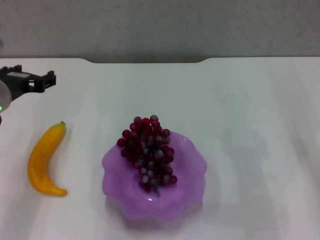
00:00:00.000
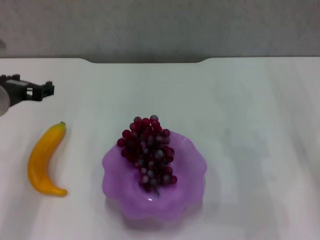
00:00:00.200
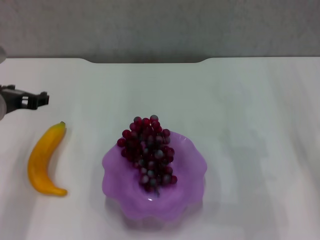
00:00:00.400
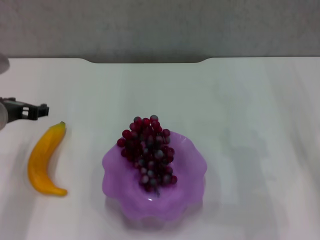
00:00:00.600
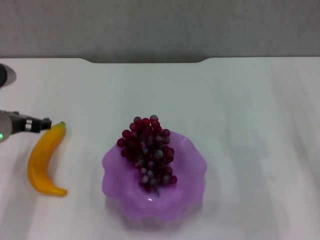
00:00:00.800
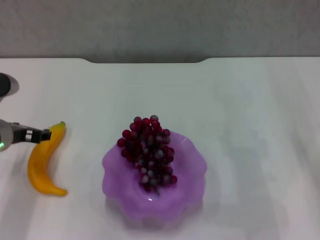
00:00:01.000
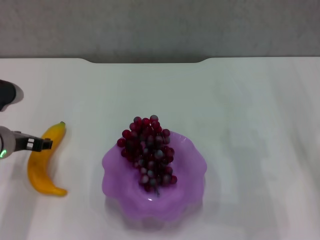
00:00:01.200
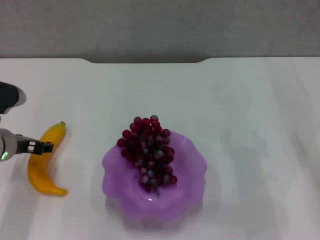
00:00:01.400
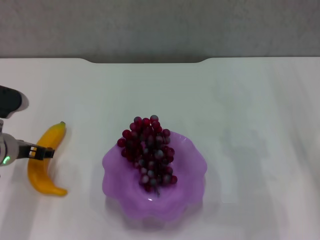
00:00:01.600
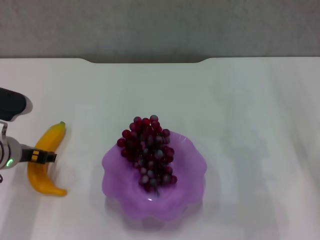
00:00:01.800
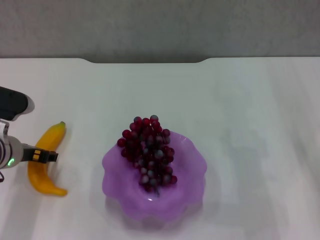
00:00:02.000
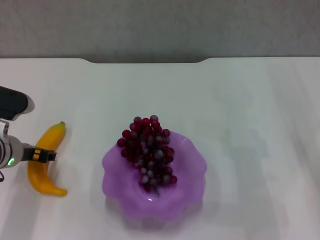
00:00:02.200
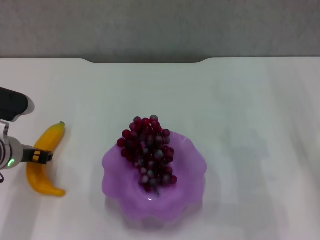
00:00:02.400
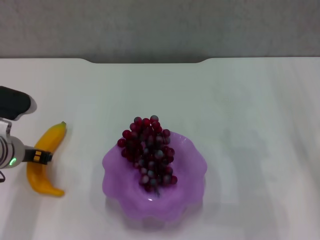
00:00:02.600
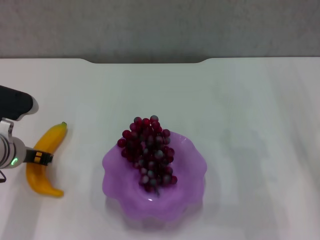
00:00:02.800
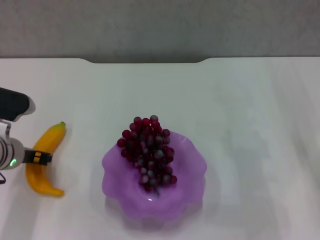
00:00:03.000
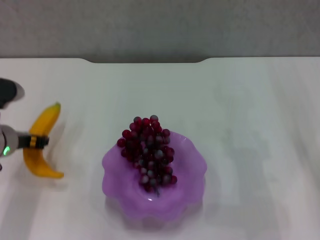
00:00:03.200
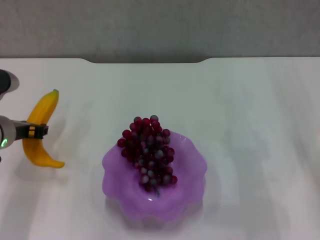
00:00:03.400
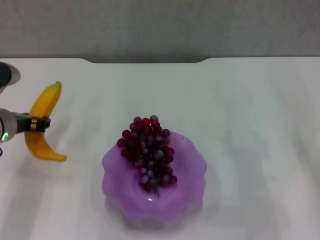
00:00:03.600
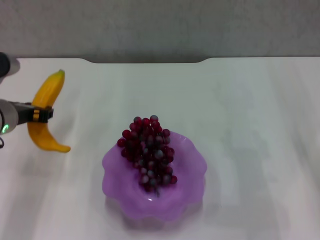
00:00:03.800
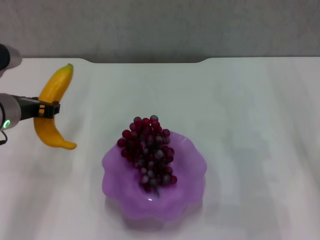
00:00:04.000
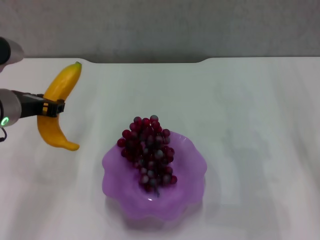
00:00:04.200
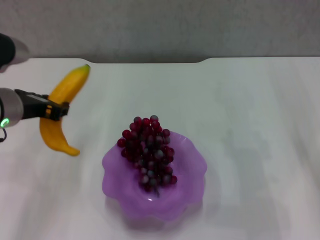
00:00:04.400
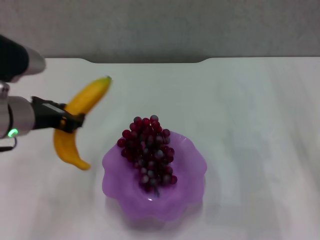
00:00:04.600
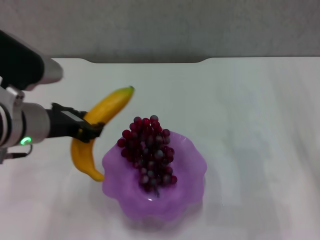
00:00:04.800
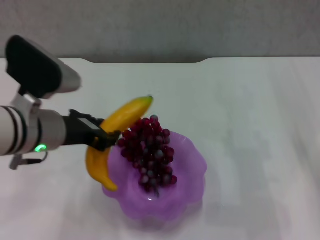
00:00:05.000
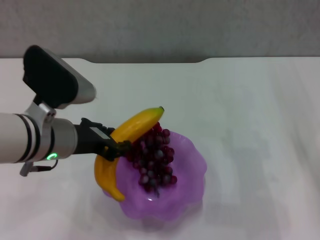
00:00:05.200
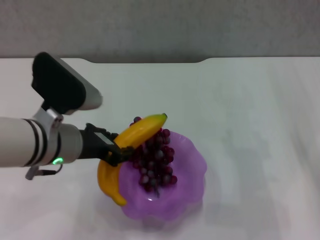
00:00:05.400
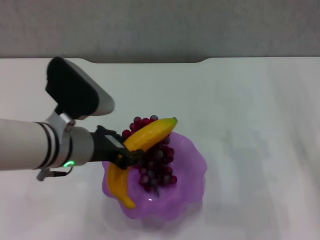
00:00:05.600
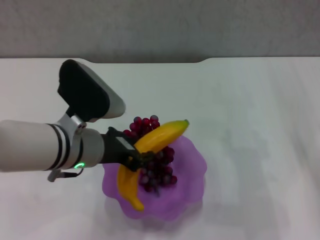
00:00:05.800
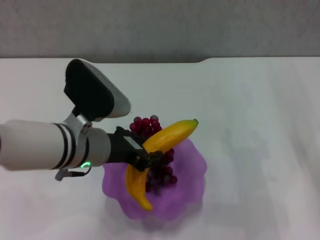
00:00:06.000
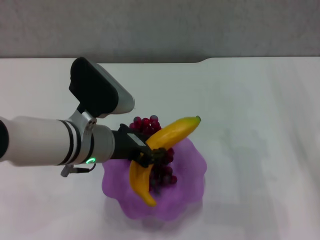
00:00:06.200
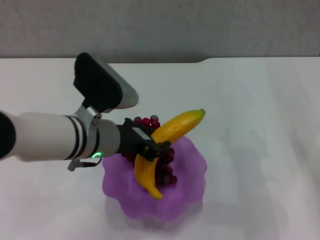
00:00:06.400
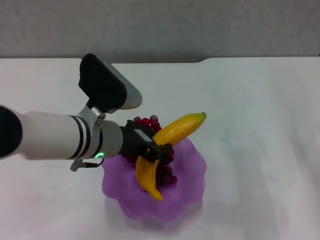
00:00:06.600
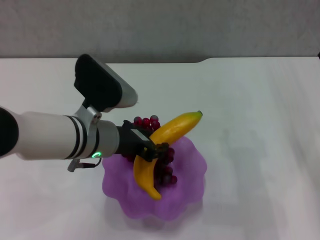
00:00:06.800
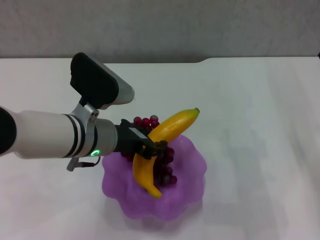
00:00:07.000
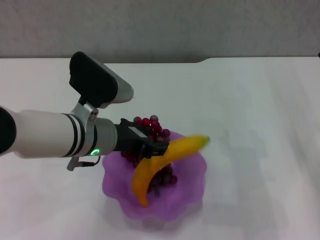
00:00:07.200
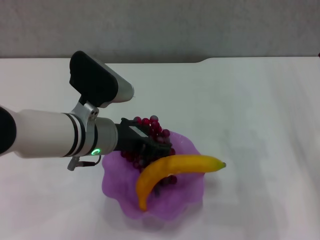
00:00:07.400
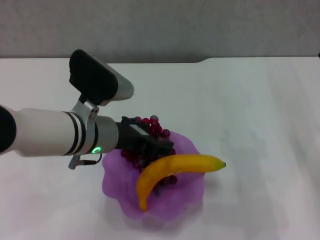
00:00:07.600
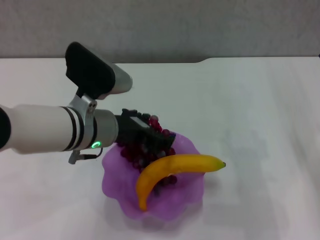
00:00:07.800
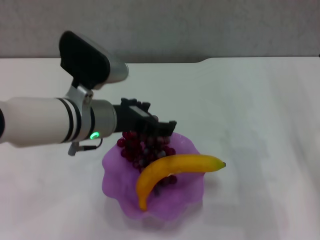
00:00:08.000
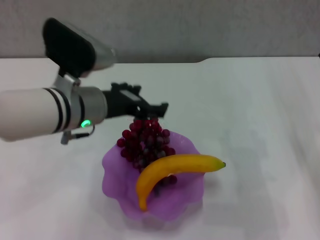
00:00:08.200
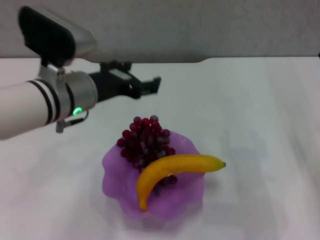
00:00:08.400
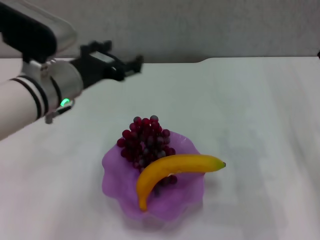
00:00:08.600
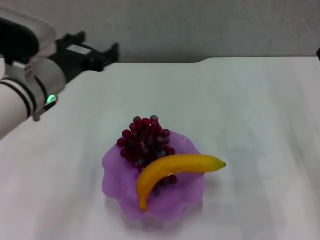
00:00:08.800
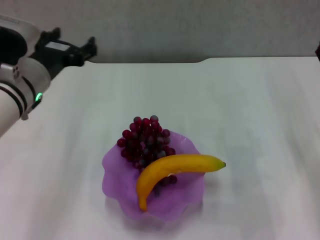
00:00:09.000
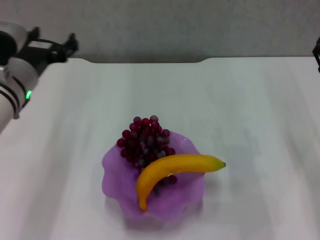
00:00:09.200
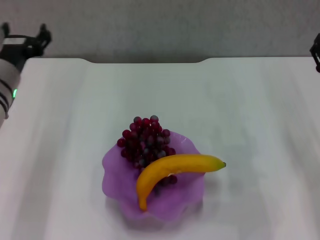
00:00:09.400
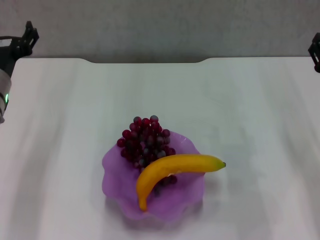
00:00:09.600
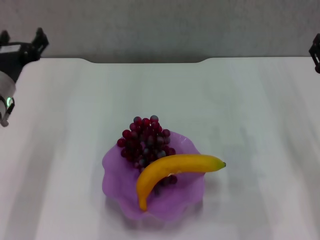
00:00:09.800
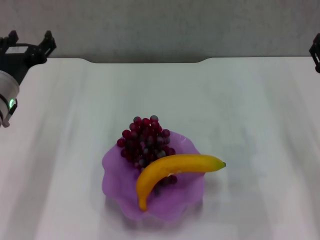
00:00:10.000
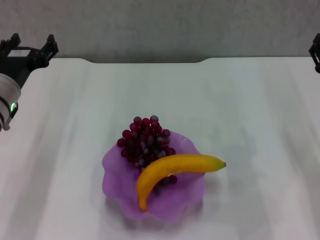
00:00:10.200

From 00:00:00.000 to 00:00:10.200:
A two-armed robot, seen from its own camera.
Step, from 00:00:00.000 to 00:00:02.800: Grasp the banana with left gripper.
Step, from 00:00:03.000 to 00:00:07.400: Place the banana in the purple plate with left gripper.
From 00:00:00.000 to 00:00:01.400: The left gripper is displaced downward by about 5 cm.
From 00:00:01.400 to 00:00:03.000: The left gripper closes up.
From 00:00:03.000 to 00:00:04.400: The left gripper moves upward, some 10 cm.
From 00:00:04.400 to 00:00:05.800: The left gripper moves to the right, roughly 10 cm.
From 00:00:05.800 to 00:00:07.200: The grippers make only small movements.
From 00:00:07.200 to 00:00:08.800: The left gripper shifts roughly 5 cm to the left, and opens up.
From 00:00:08.800 to 00:00:10.200: The left gripper travels to the left by some 5 cm.

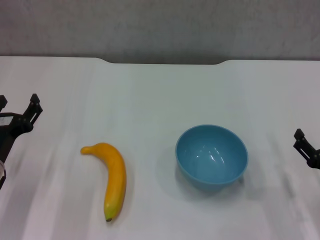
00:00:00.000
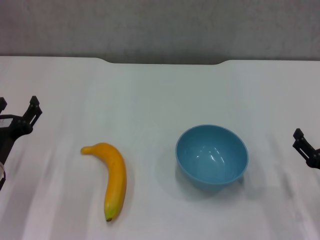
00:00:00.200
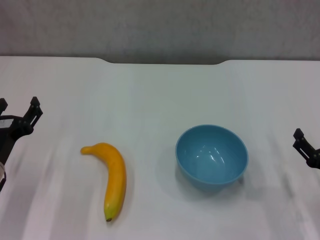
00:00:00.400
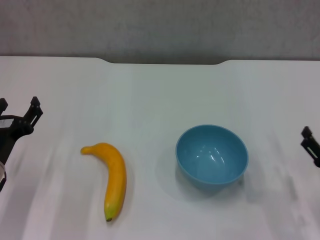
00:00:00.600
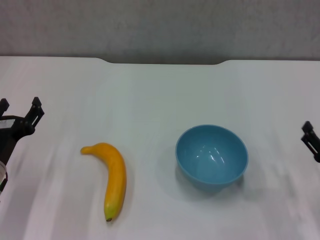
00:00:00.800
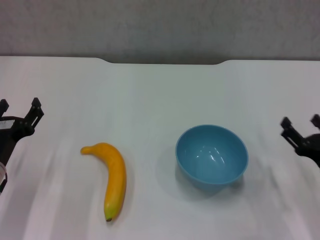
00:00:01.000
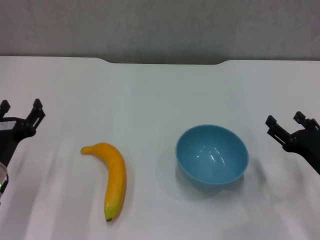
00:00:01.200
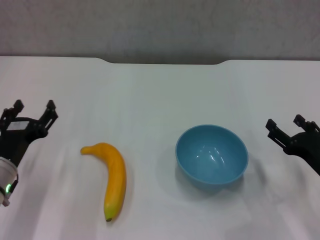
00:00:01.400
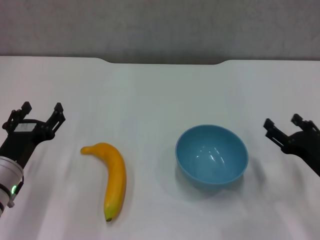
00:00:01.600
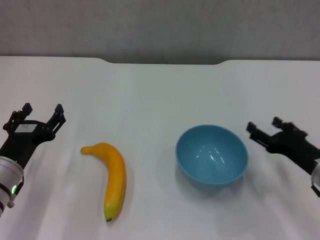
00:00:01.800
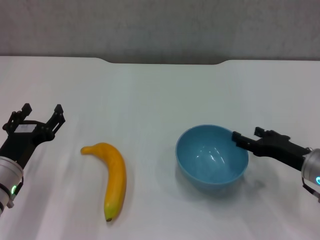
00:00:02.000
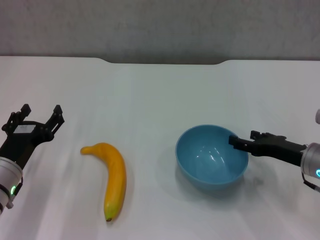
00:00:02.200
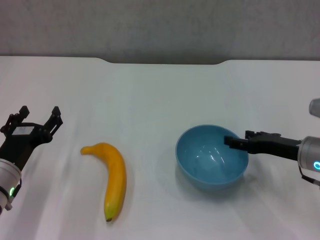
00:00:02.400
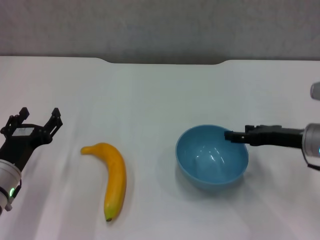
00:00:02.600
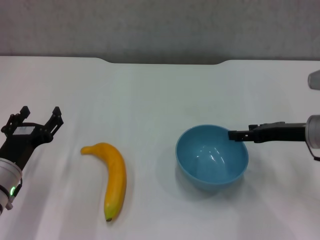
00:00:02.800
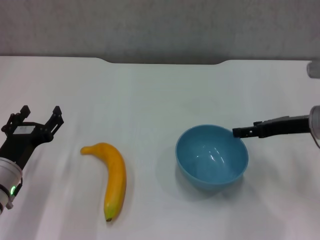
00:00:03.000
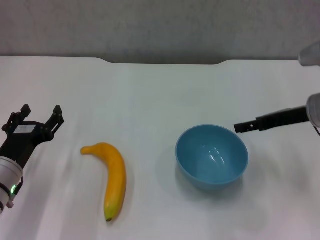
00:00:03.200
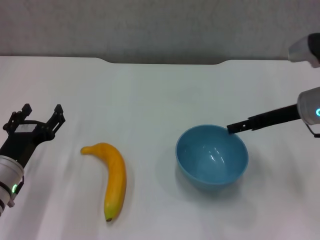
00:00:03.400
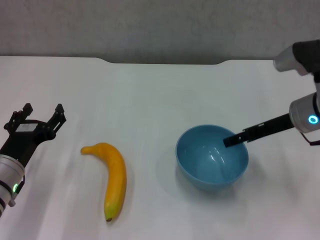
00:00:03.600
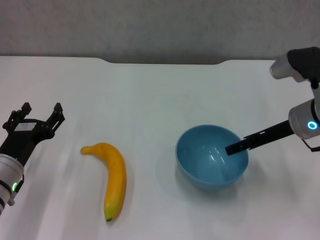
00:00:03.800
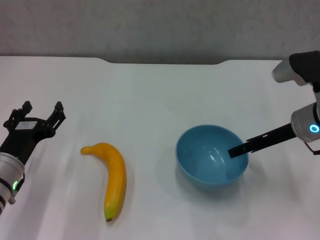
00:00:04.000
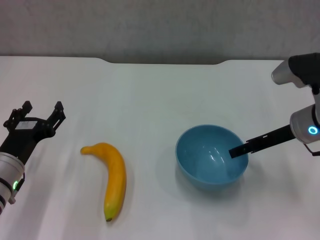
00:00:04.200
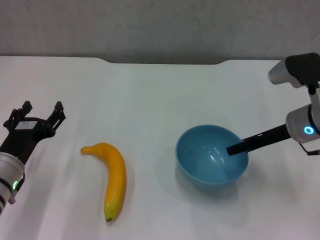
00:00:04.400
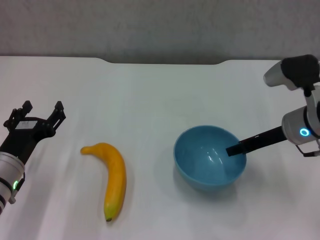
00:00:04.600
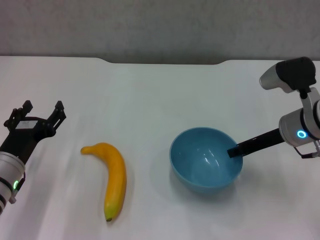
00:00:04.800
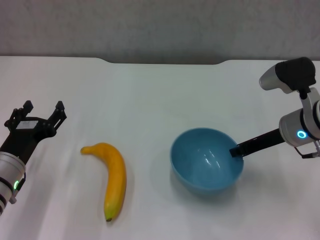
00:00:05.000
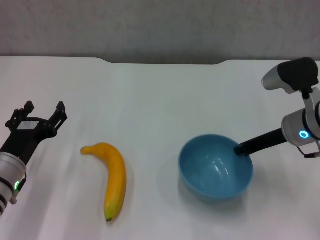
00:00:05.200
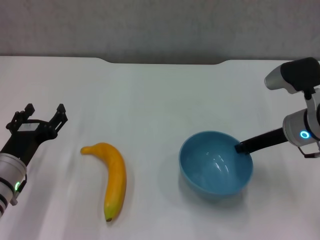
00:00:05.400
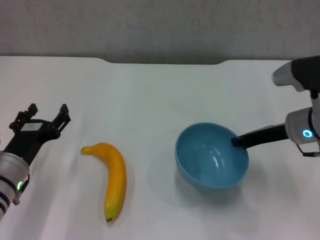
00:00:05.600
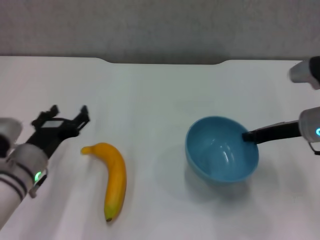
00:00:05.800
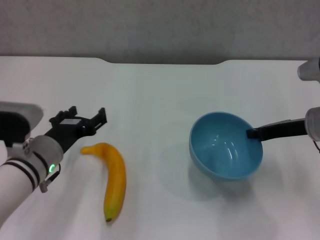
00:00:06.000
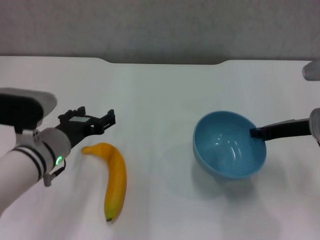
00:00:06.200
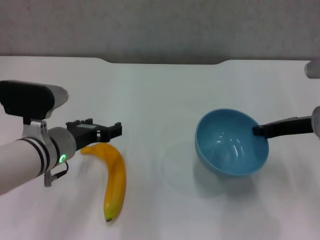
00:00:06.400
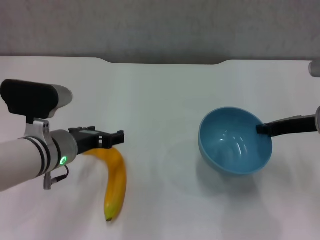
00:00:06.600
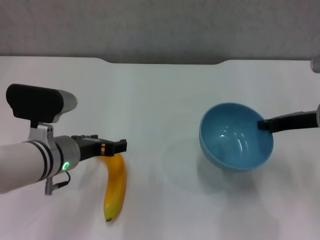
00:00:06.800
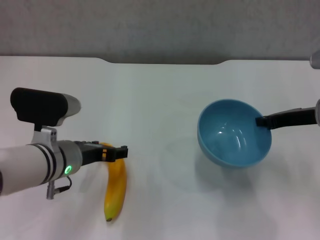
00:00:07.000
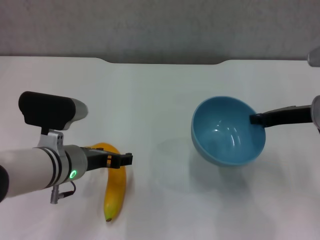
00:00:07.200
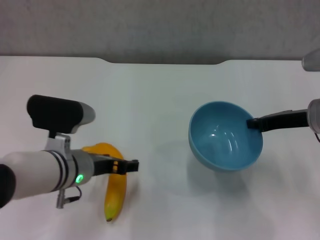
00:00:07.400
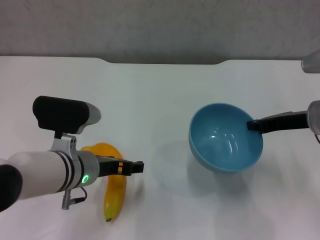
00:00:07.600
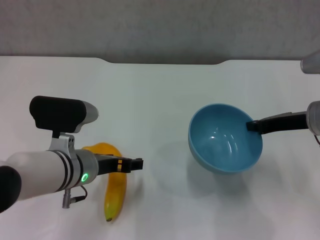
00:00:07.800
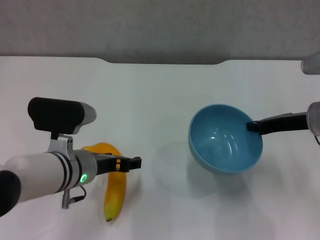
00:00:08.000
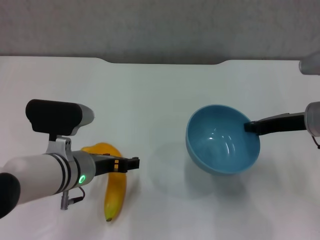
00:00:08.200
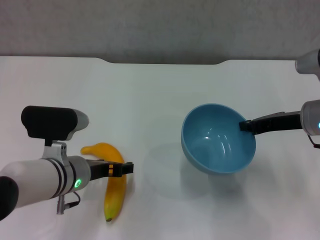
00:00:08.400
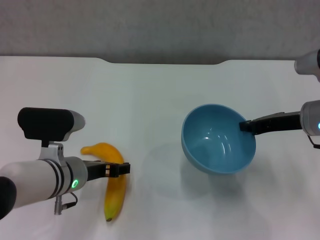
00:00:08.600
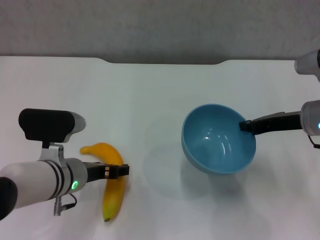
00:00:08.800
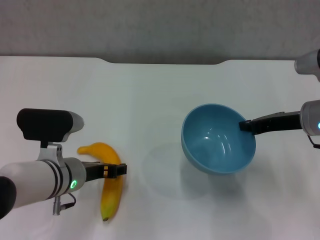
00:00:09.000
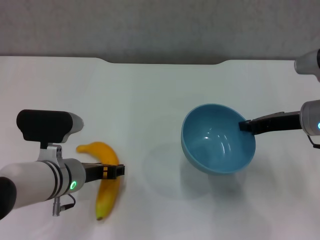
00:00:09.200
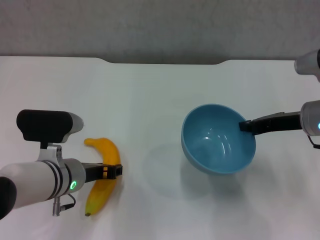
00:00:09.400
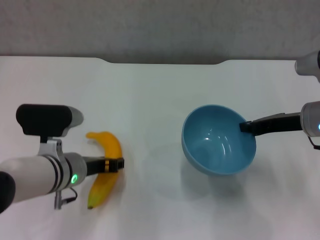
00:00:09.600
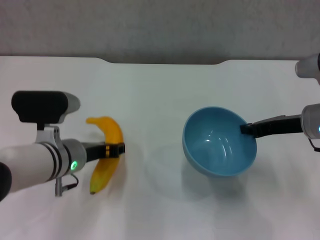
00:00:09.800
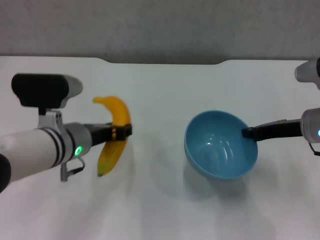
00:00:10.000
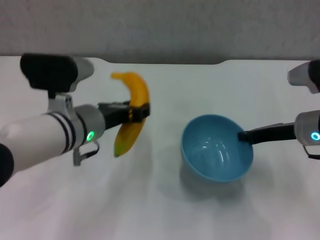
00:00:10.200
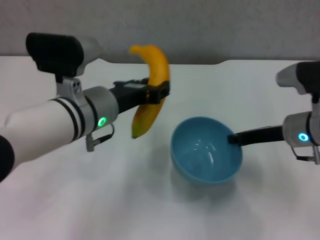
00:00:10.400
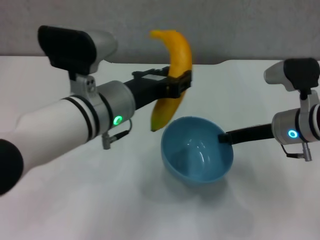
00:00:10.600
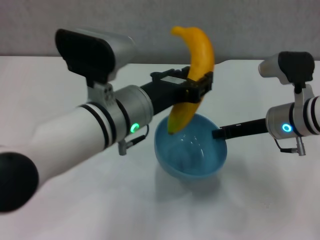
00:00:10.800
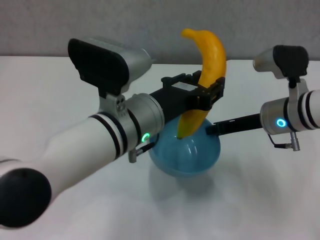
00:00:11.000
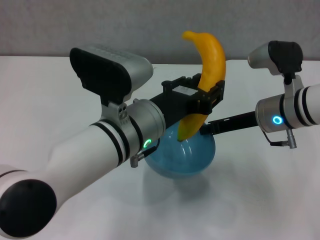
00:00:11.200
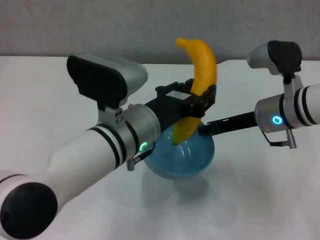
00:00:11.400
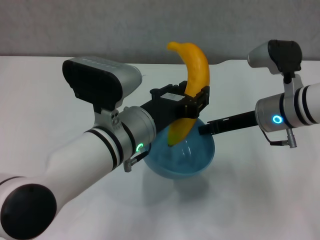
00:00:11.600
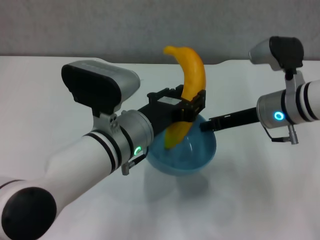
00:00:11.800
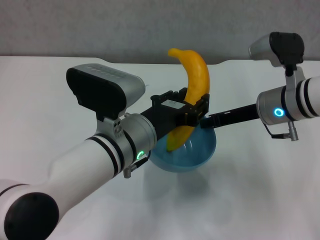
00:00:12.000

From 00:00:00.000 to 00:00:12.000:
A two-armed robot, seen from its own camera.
Step, from 00:00:00.000 to 00:00:05.000: Grasp the blue bowl with right gripper.
Step, from 00:00:05.400 to 00:00:07.000: Lift the blue bowl with right gripper.
Step, from 00:00:07.400 to 00:00:09.400: Grasp the banana with left gripper.
From 00:00:00.000 to 00:00:01.600: There are only small adjustments of the grippers.
From 00:00:01.600 to 00:00:03.000: The right gripper moves forward and upward, approximately 15 cm.
From 00:00:03.000 to 00:00:04.400: The grippers make only small movements.
From 00:00:04.400 to 00:00:06.000: The left gripper heads to the right, covering approximately 5 cm. Meanwhile the right gripper closes up.
From 00:00:06.000 to 00:00:07.600: The left gripper is displaced to the right by some 5 cm.
From 00:00:07.600 to 00:00:09.000: There are only small adjustments of the grippers.
From 00:00:09.000 to 00:00:10.400: The left gripper heads upward, covering about 10 cm, and closes up.
From 00:00:10.400 to 00:00:12.000: The left gripper goes some 5 cm to the right. Meanwhile the right gripper moves roughly 5 cm.
